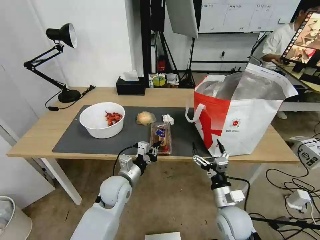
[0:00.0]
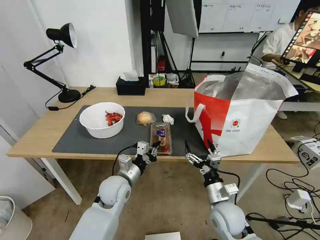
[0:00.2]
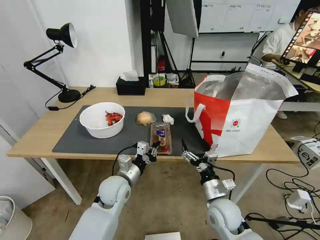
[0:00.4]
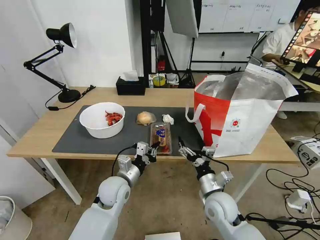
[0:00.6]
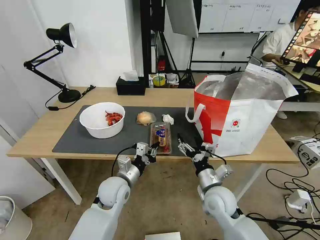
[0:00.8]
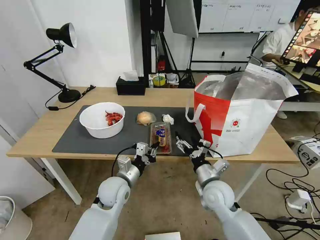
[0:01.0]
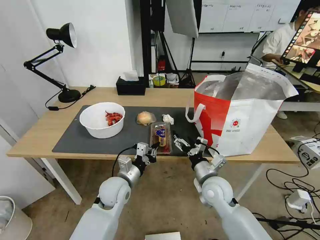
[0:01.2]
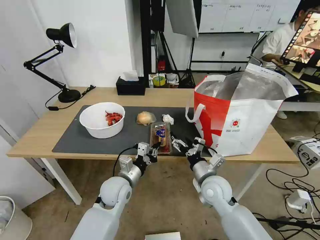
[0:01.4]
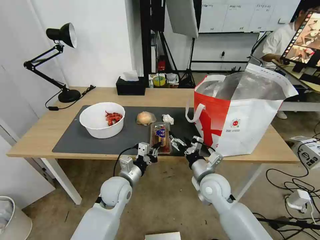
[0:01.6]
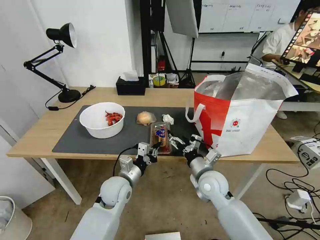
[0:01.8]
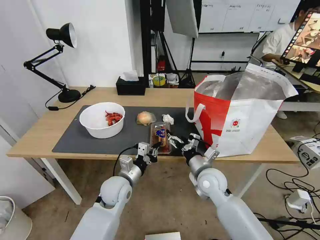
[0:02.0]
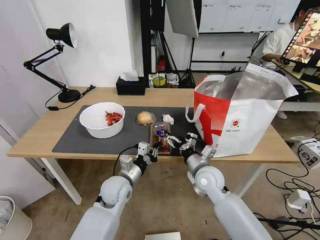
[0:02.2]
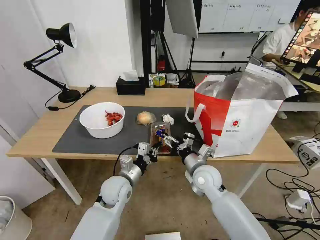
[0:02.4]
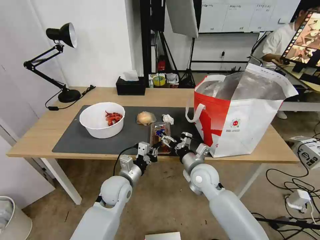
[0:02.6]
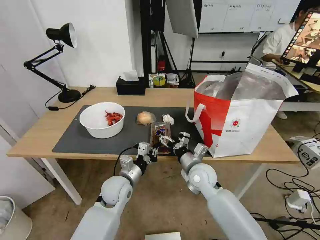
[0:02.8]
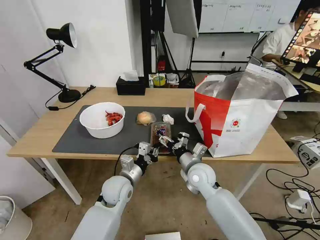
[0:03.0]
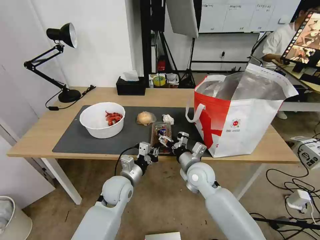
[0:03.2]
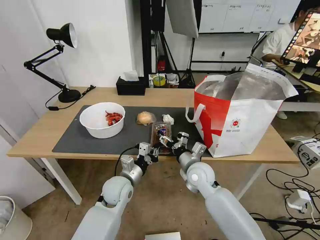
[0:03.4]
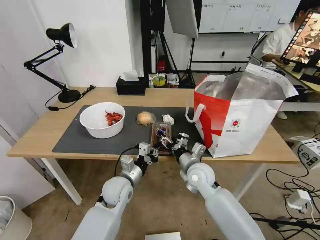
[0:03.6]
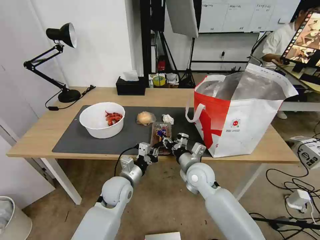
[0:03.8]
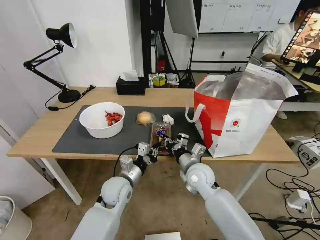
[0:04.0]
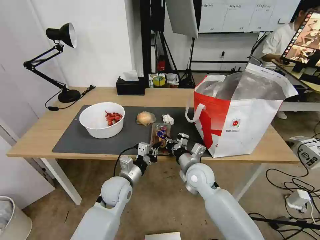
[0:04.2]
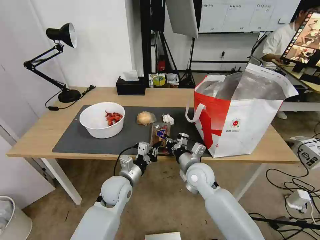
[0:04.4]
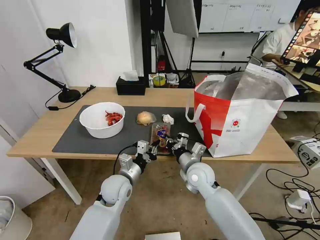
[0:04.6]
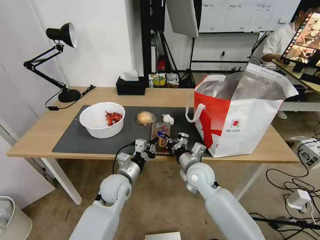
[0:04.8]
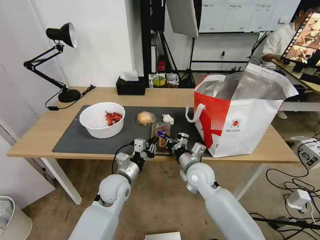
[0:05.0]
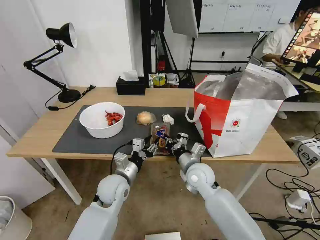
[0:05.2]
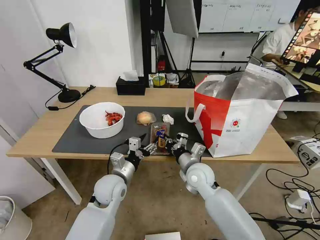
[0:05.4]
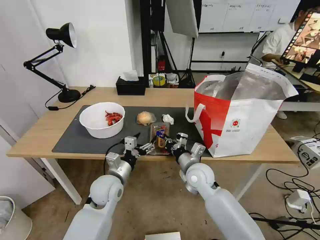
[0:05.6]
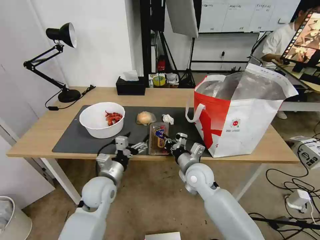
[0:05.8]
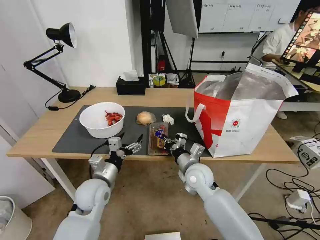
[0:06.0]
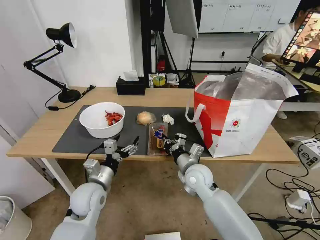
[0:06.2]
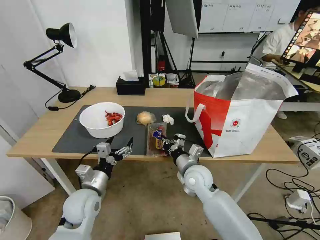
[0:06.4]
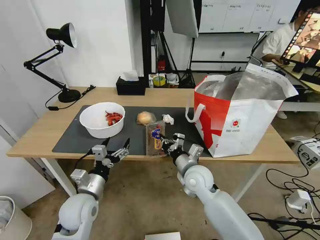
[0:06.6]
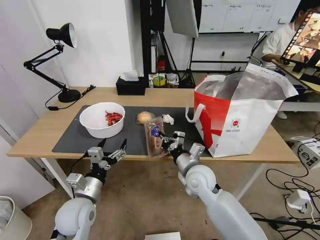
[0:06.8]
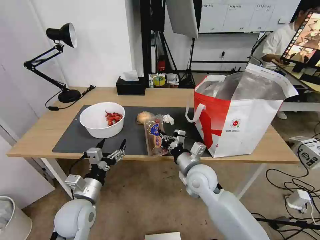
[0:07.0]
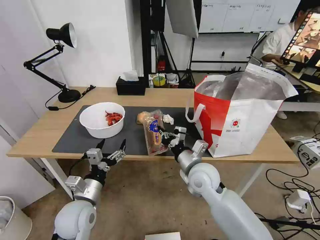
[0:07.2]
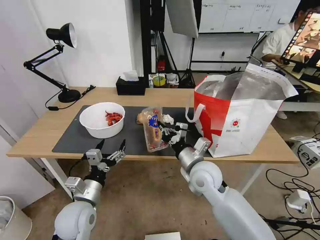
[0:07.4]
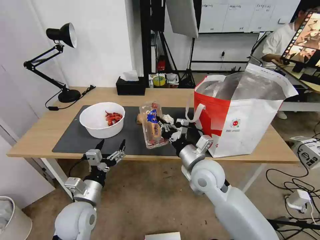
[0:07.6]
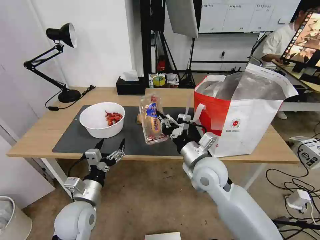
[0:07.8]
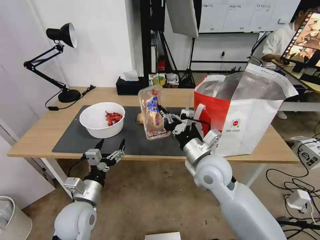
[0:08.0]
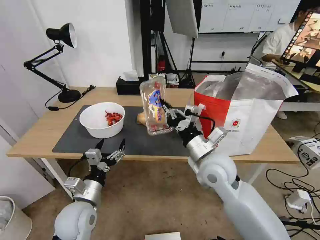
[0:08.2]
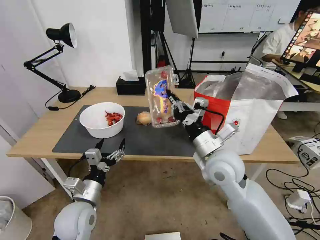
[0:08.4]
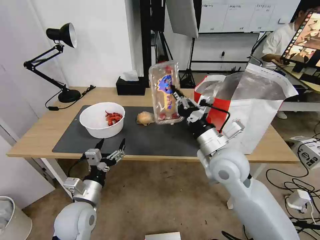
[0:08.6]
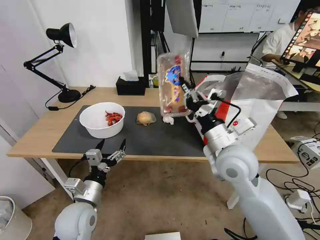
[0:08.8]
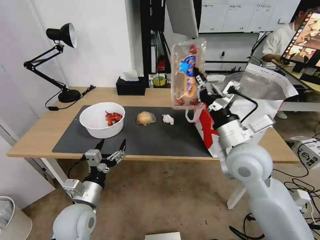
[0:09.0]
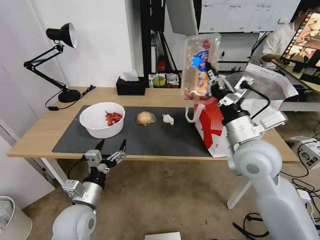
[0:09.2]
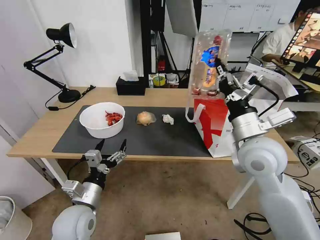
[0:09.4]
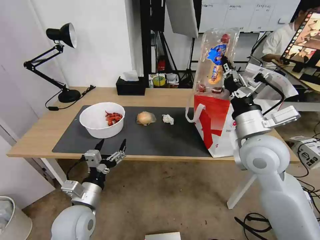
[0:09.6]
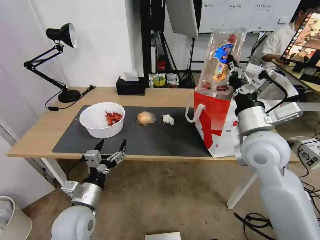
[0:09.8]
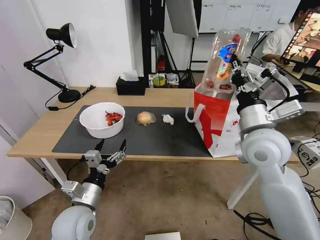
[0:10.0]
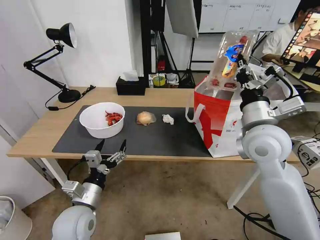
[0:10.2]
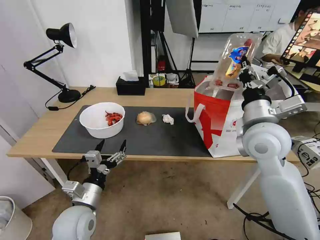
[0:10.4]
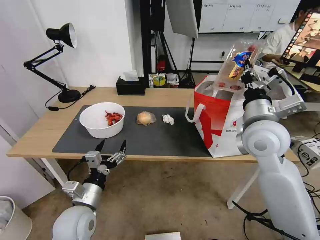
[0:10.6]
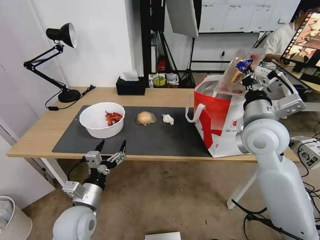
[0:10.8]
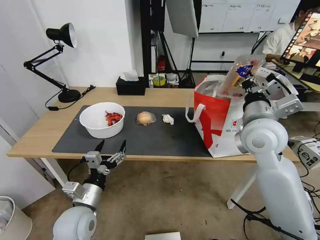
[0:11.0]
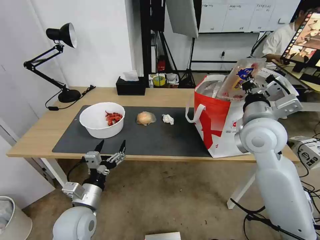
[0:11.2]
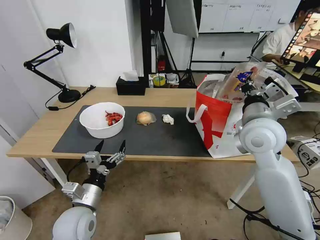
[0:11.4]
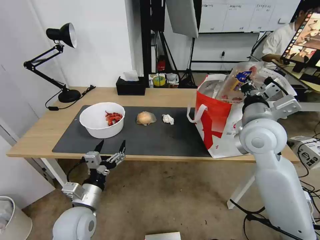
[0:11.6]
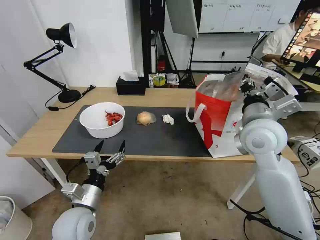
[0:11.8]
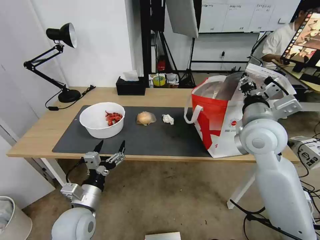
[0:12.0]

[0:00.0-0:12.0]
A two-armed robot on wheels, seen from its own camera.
Task of the whole recording: Pick up the trash from the table and place it into the takeout bag.
0:00.0 to 0:01.6: The right gripper goes approximately 10 cm forward.
0:01.6 to 0:03.0: The right gripper moves some 5 cm.
0:03.0 to 0:04.4: The right gripper closes its fingers.
0:04.4 to 0:06.0: The left gripper is displaced to the left by some 5 cm, and opens its fingers.
0:06.0 to 0:07.6: The left gripper is displaced backward by approximately 5 cm. The right gripper goes about 10 cm upward.
0:07.6 to 0:09.0: The right gripper heads upward and to the right, covering roughly 10 cm.
0:09.0 to 0:10.4: The right gripper shifts by approximately 5 cm.
0:10.4 to 0:12.0: The right gripper opens.

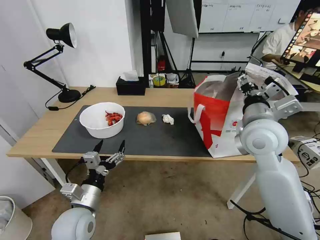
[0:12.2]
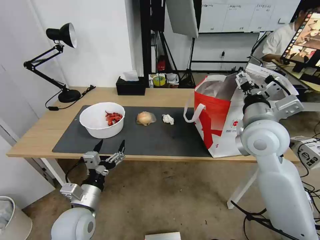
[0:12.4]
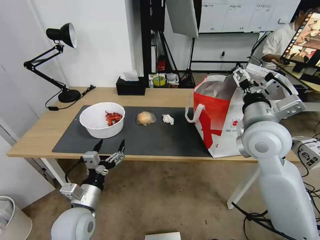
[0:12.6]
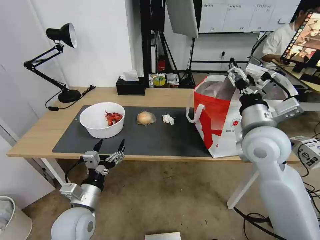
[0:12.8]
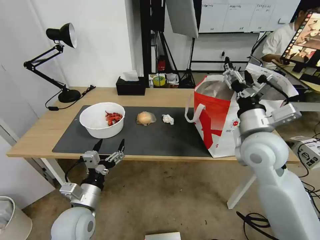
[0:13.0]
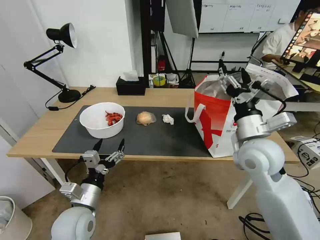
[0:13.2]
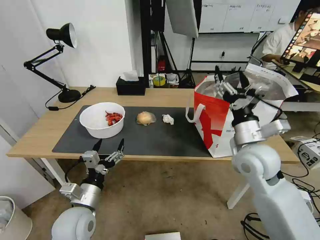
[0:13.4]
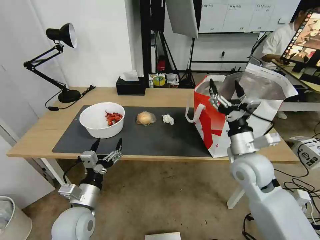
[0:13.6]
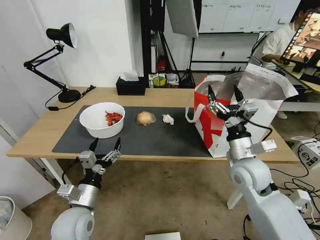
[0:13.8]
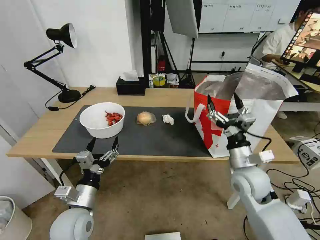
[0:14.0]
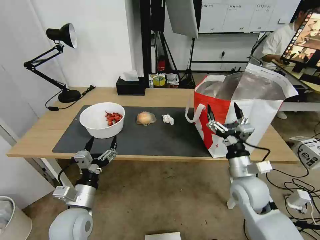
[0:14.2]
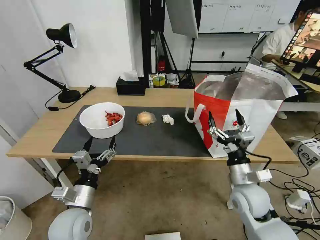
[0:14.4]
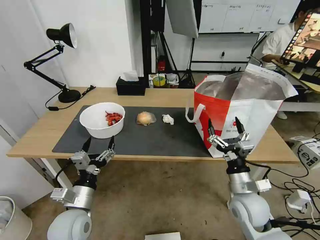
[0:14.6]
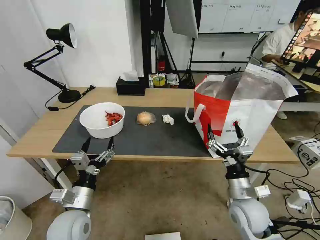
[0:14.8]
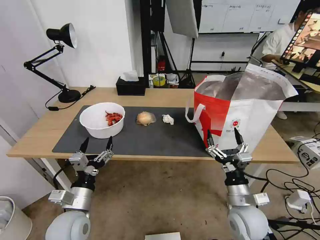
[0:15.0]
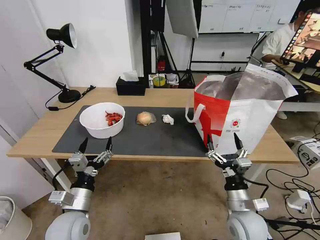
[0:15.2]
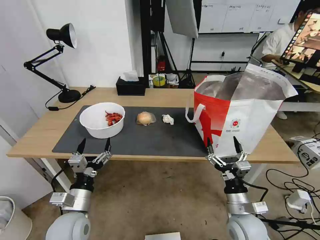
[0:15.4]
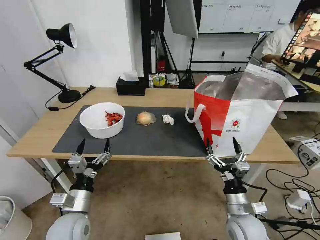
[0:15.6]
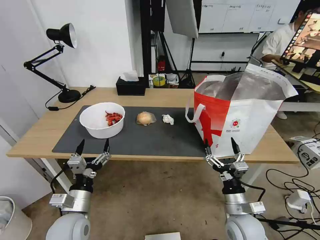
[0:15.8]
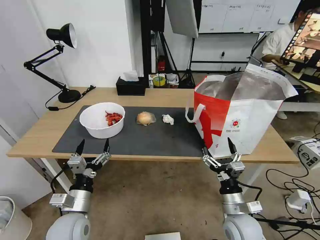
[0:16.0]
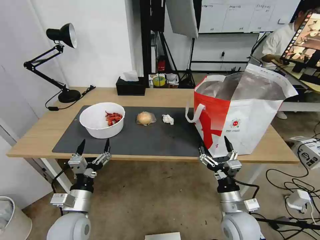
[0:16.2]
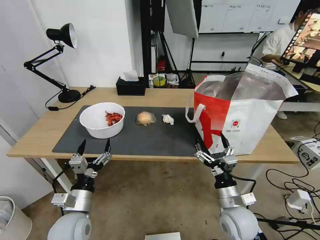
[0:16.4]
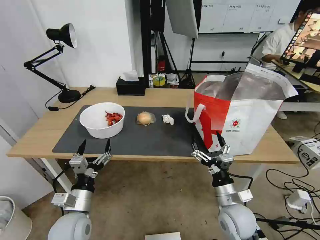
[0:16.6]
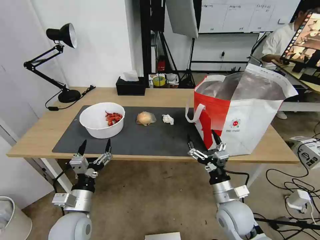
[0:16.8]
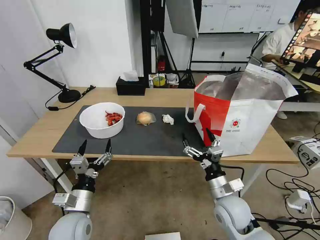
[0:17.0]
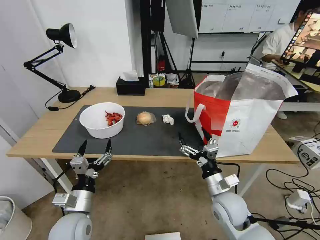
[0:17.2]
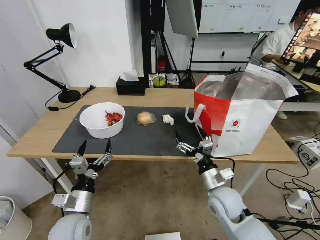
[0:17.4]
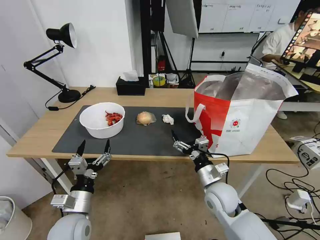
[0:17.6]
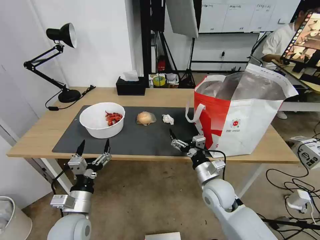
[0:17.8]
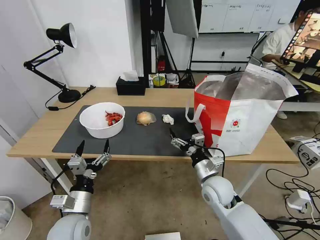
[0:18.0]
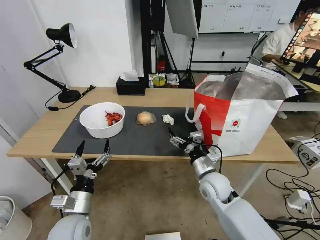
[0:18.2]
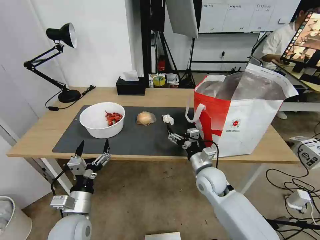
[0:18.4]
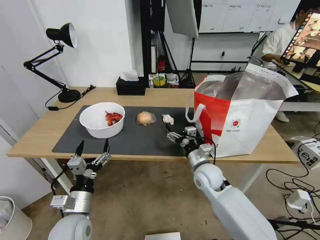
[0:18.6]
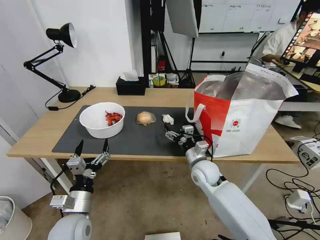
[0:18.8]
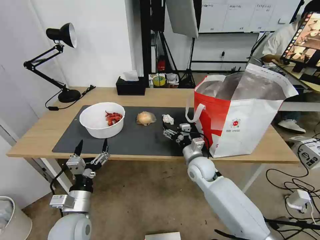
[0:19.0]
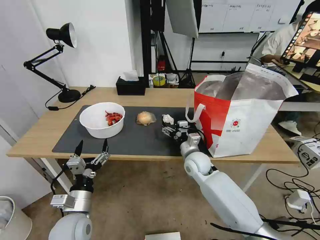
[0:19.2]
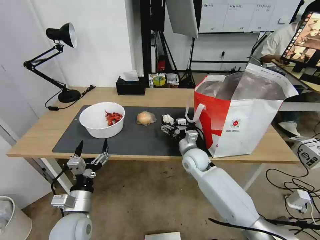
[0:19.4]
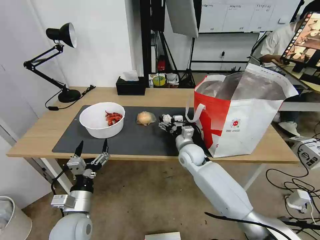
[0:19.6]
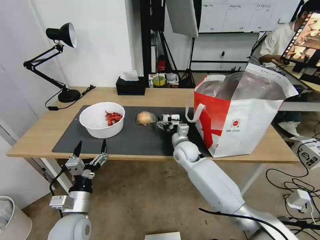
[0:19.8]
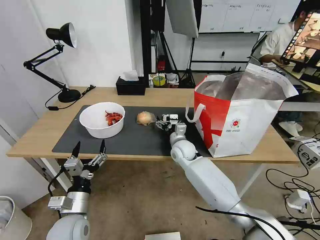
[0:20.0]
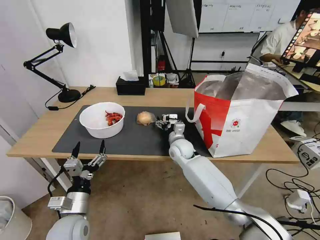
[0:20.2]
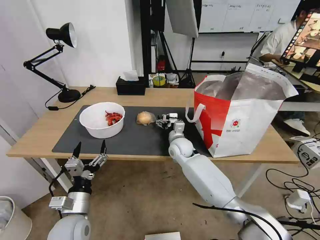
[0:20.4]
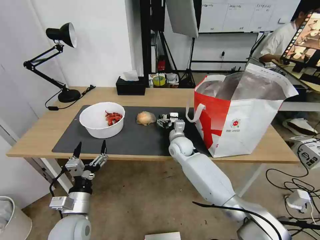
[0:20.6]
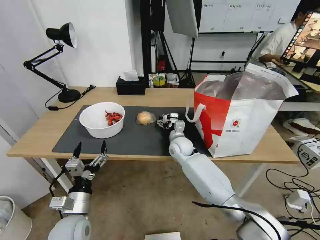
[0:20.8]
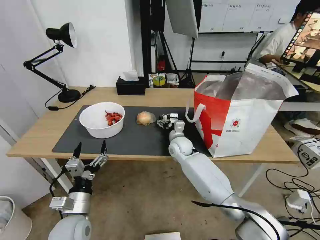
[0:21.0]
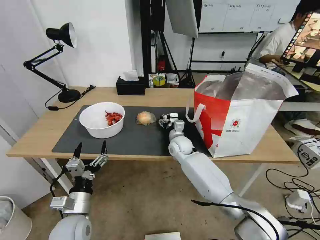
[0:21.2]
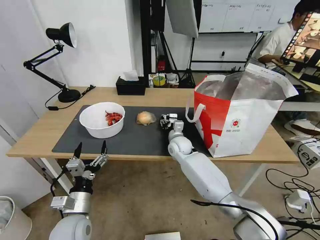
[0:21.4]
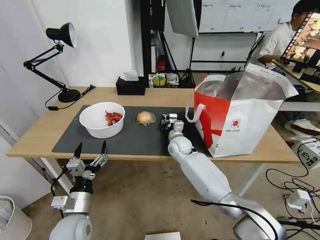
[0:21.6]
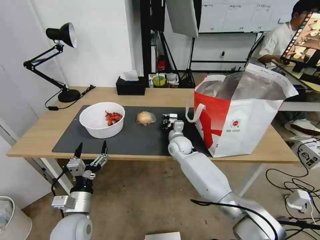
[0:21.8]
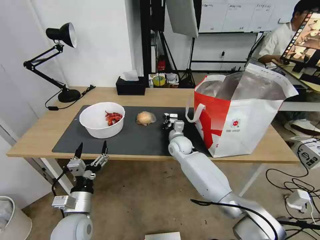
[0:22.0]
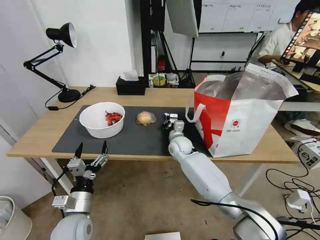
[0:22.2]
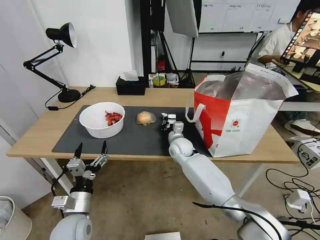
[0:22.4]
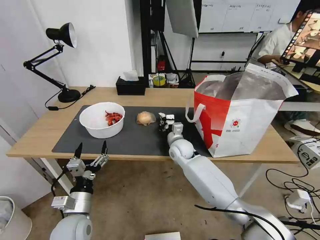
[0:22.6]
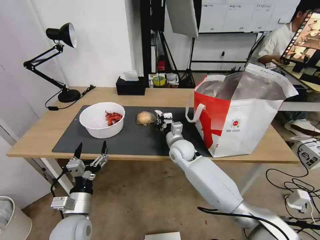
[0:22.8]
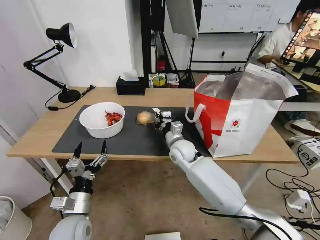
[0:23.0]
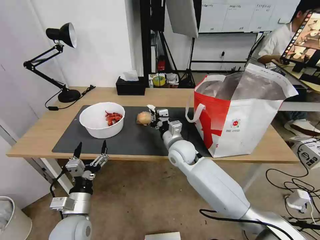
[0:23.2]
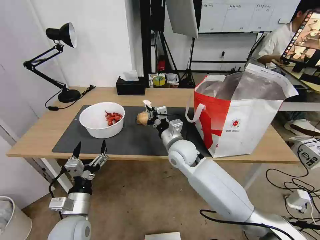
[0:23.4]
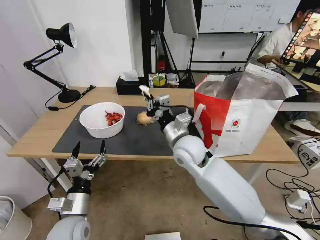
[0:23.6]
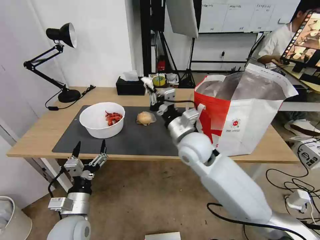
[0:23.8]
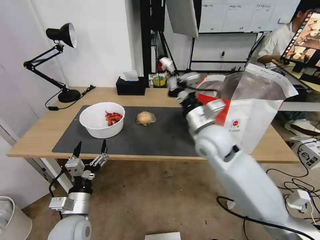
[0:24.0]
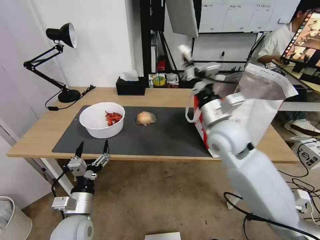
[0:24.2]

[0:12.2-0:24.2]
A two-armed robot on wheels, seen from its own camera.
Task of the whole recording: Pick up the trash from the table and place it into the takeout bag.
0:12.2 to 0:13.8: The right gripper shifts roughly 15 cm downward.
0:13.8 to 0:15.2: The right gripper is displaced downward and backward by roughly 15 cm.
0:15.2 to 0:16.6: The grippers make only small movements.
0:16.6 to 0:18.2: The right gripper is displaced forward by about 10 cm.
0:18.2 to 0:19.8: The right gripper shifts roughly 15 cm forward and to the left.
0:19.8 to 0:21.2: There are only small adjustments of the grippers.
0:21.2 to 0:22.6: The right gripper closes.
0:22.6 to 0:24.2: The right gripper heads upward, backward and to the right, covering roughly 25 cm.
